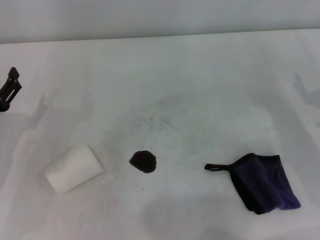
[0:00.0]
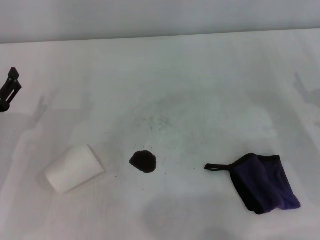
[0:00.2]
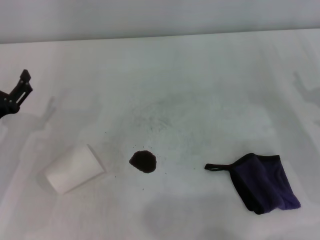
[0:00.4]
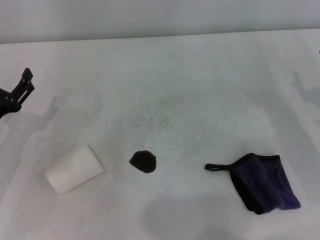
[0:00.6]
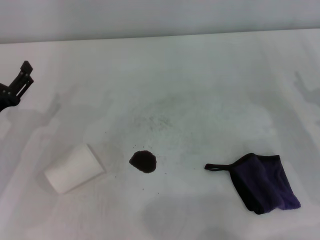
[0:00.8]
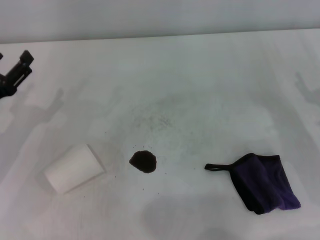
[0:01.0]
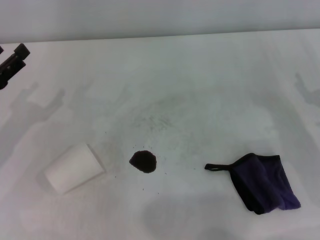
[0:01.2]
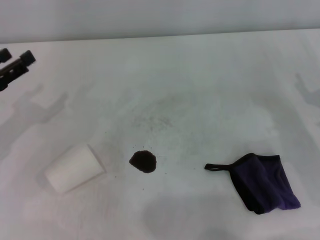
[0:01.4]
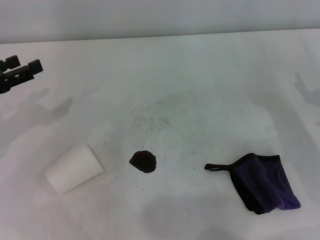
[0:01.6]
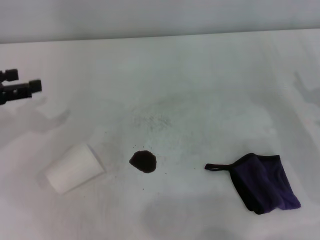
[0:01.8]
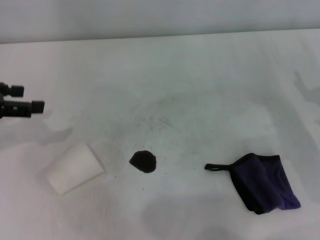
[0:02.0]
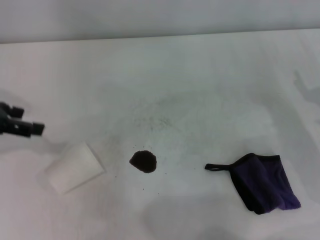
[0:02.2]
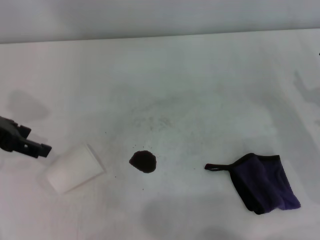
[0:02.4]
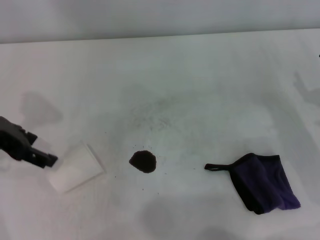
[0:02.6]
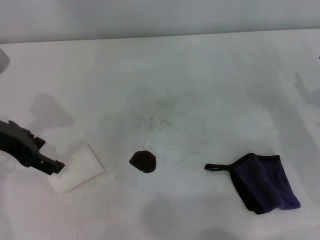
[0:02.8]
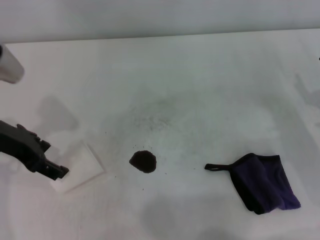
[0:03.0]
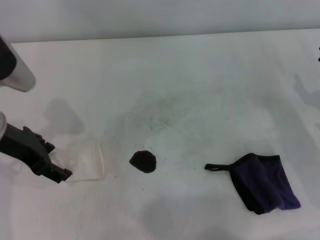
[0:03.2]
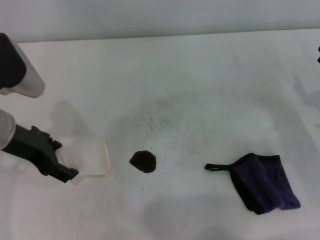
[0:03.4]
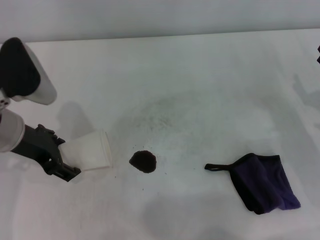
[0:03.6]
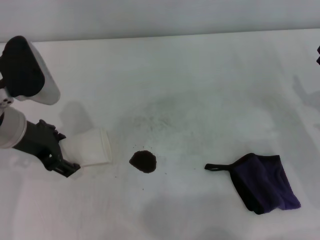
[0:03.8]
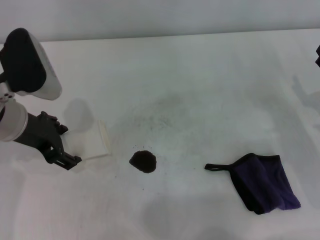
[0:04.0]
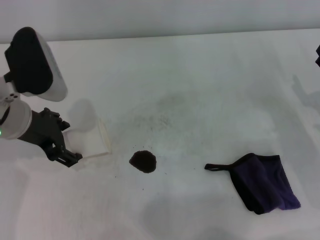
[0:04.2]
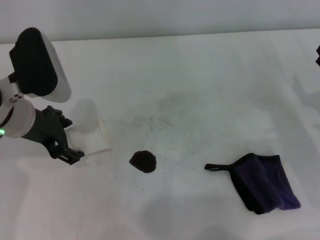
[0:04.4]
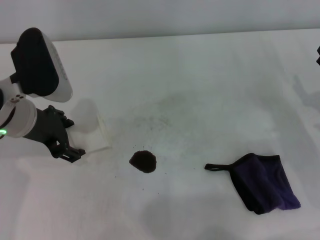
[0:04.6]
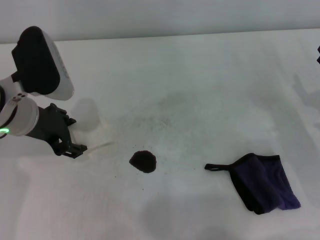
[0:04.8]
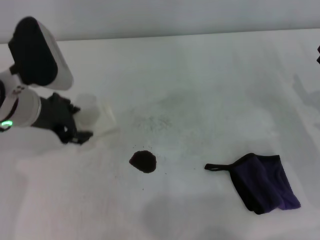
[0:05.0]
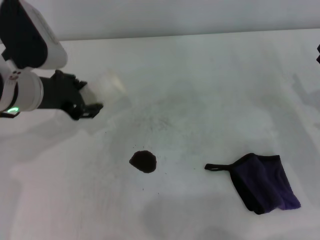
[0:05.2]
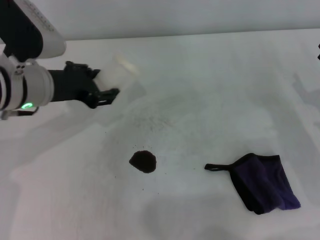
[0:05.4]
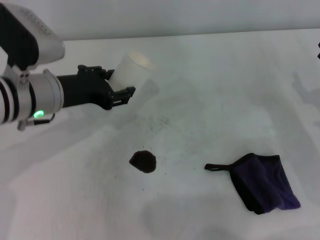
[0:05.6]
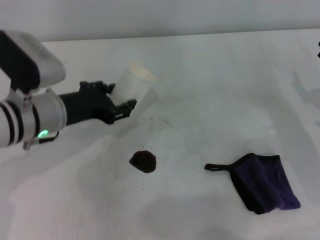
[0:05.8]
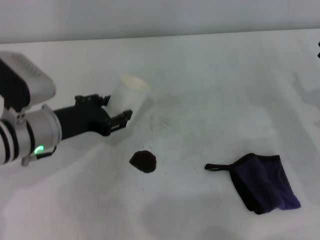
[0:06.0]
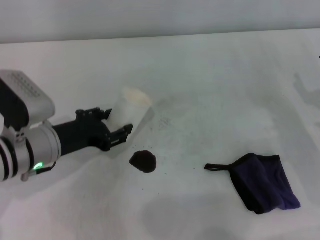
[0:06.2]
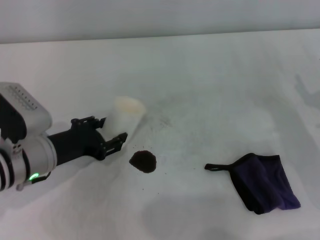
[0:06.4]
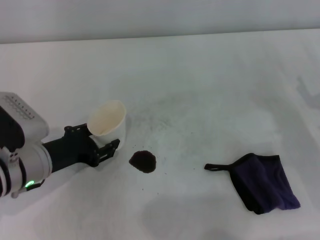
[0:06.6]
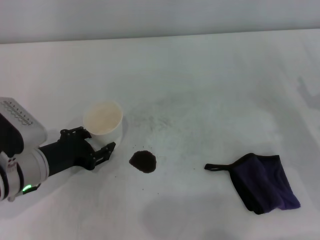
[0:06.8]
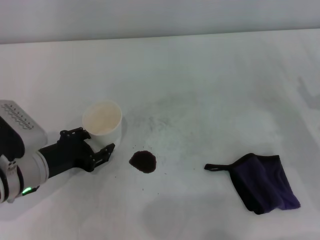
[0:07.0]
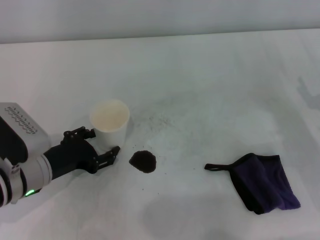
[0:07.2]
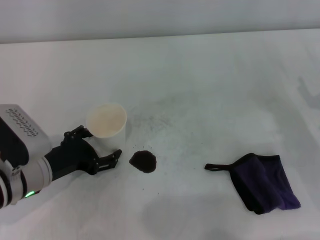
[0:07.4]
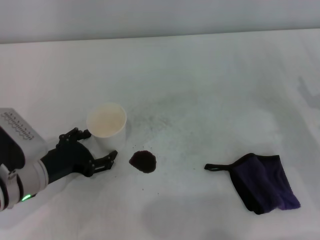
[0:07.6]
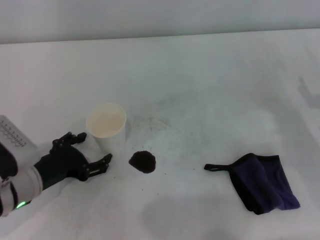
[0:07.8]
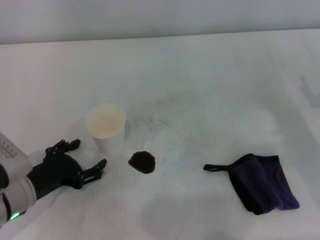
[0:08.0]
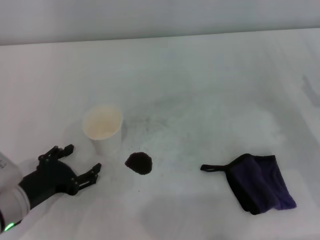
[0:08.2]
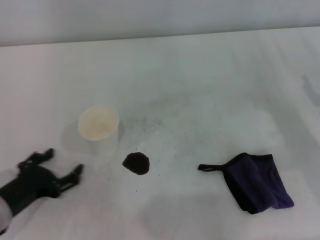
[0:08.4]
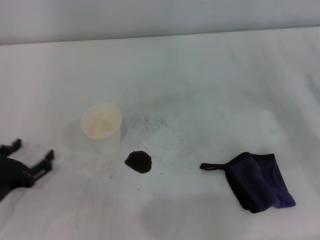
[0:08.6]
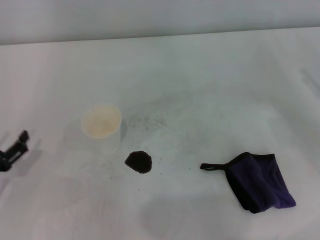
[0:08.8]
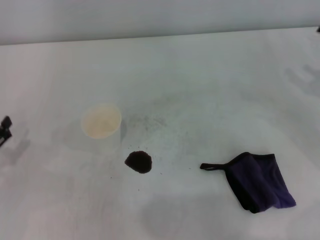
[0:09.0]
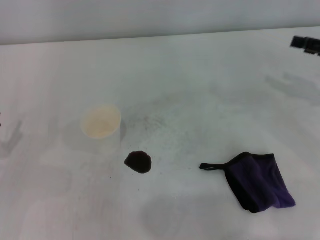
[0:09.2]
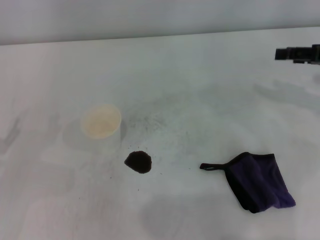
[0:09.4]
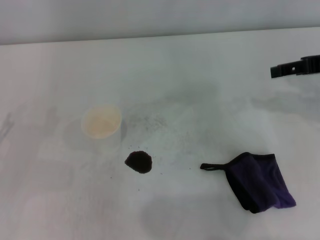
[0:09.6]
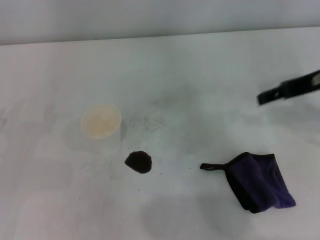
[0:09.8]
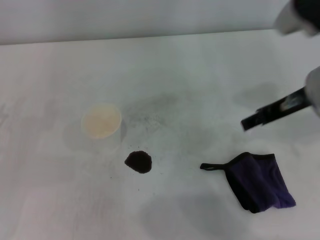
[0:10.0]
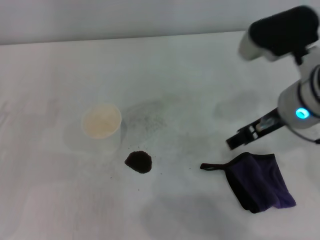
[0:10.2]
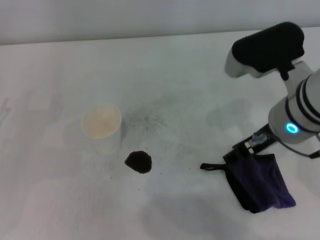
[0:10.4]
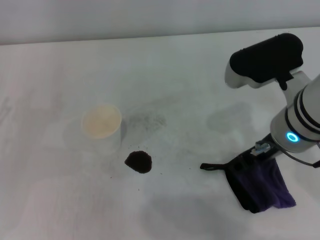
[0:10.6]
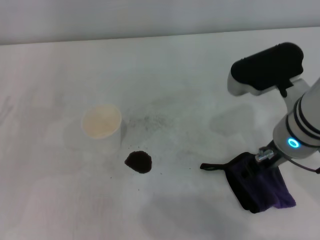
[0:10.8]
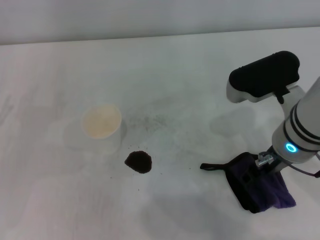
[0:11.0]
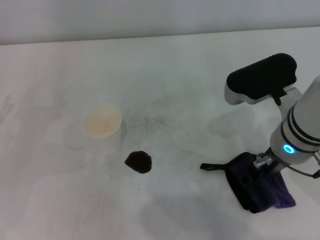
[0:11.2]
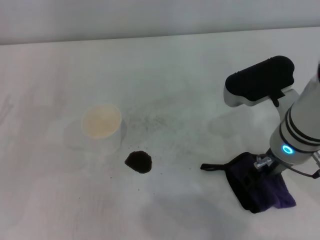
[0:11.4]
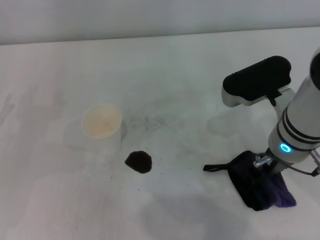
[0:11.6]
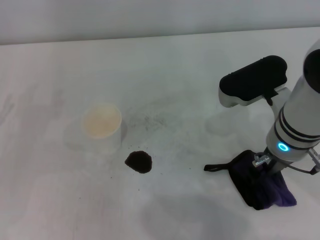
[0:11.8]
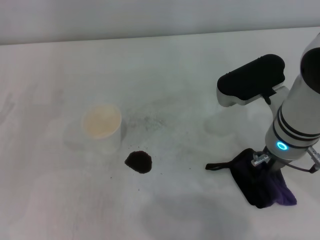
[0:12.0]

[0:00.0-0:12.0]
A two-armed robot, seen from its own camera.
Step, 0.0 to 4.8 s: Grasp the paper cup with the left gripper.
Step, 5.0 to 7.0 s: Stand the paper cup upright with the left gripper.
Step, 7.2 to 11.6 s: Grasp the rag with the right gripper.
0.0 to 1.6 s: The left gripper heads upward, covering approximately 10 cm.
1.6 to 3.0 s: The left gripper is displaced to the right by roughly 10 cm.
4.4 to 6.0 s: The left gripper is displaced downward by about 5 cm, and closes.
6.0 to 7.6 s: The left gripper travels downward by about 5 cm, and opens its fingers.
7.6 to 9.0 s: The left gripper is displaced to the left by some 10 cm. Meanwhile the right gripper shifts about 5 cm upward.
9.0 to 10.4 s: The right gripper heads to the left, covering about 25 cm.
10.4 to 12.0 s: The right gripper closes up.

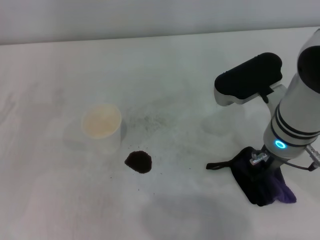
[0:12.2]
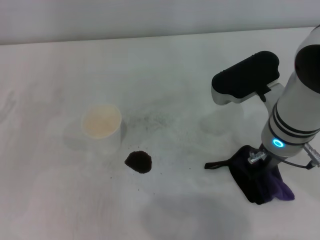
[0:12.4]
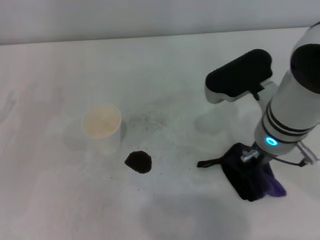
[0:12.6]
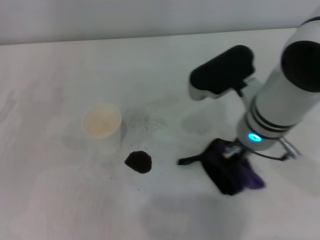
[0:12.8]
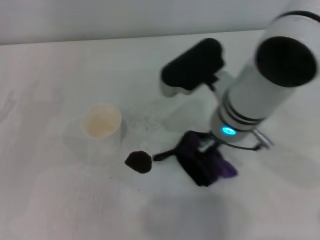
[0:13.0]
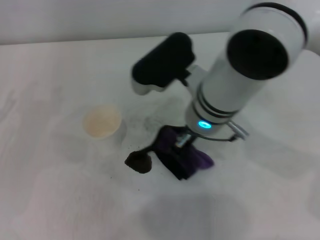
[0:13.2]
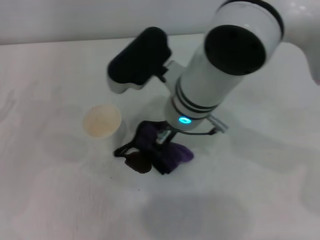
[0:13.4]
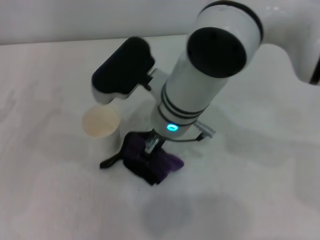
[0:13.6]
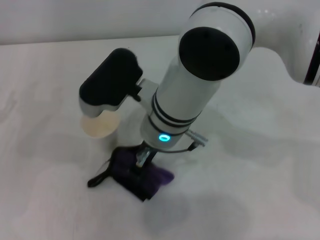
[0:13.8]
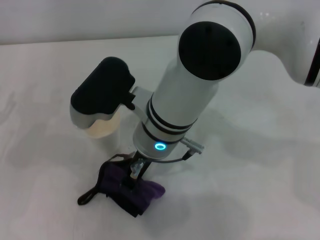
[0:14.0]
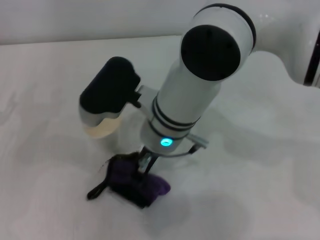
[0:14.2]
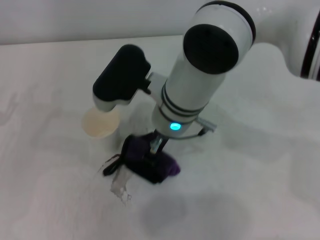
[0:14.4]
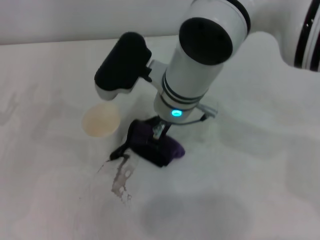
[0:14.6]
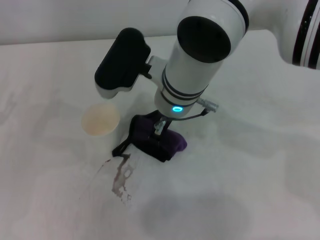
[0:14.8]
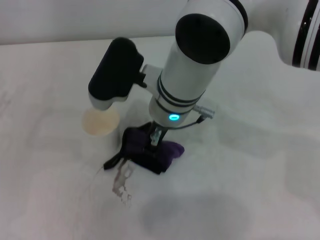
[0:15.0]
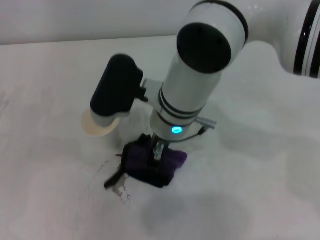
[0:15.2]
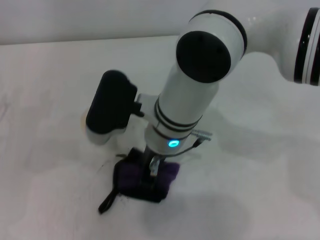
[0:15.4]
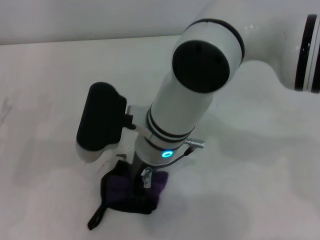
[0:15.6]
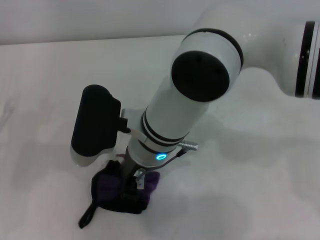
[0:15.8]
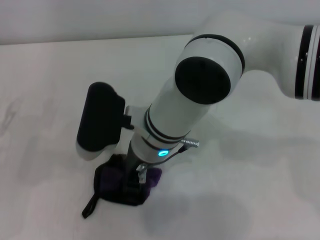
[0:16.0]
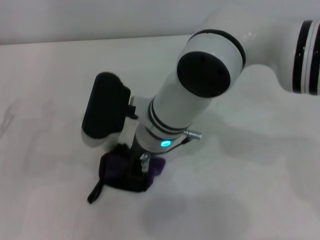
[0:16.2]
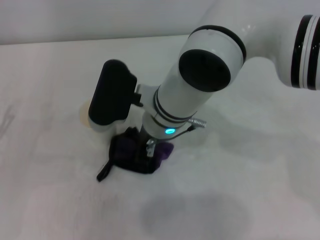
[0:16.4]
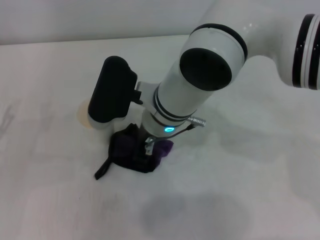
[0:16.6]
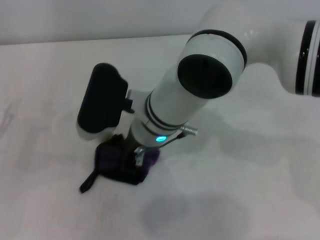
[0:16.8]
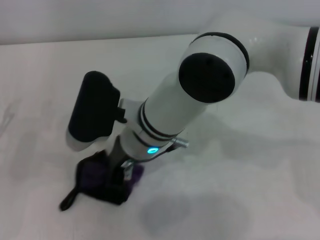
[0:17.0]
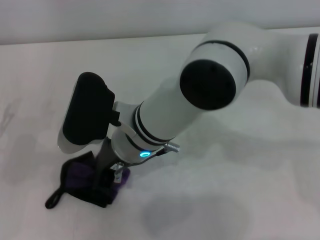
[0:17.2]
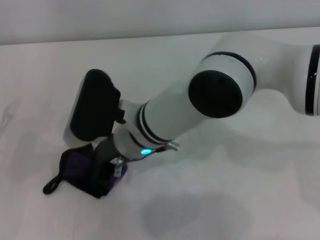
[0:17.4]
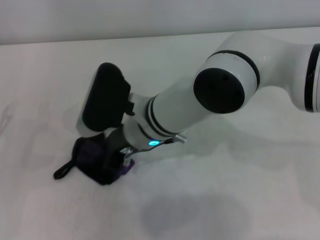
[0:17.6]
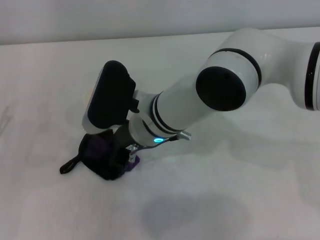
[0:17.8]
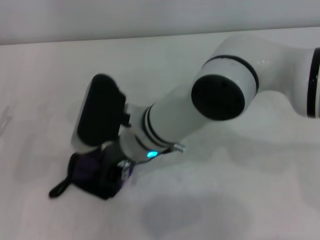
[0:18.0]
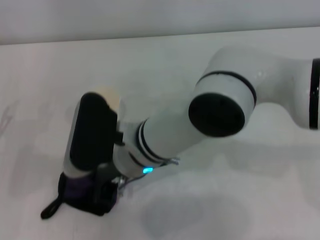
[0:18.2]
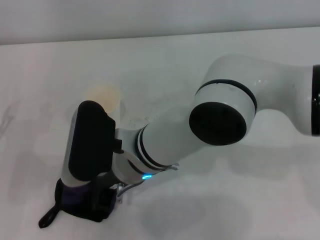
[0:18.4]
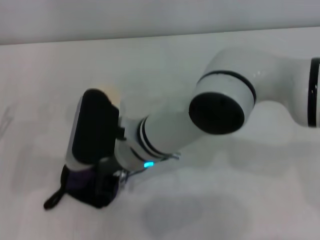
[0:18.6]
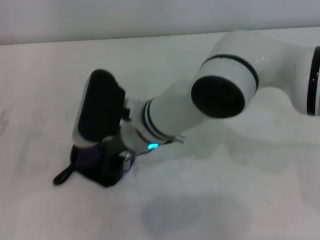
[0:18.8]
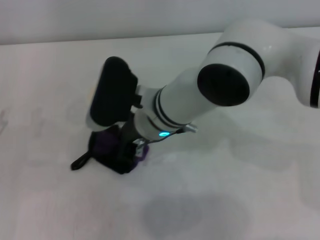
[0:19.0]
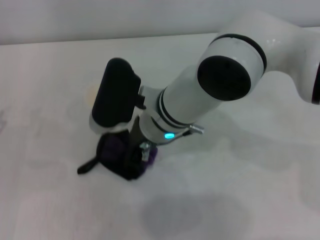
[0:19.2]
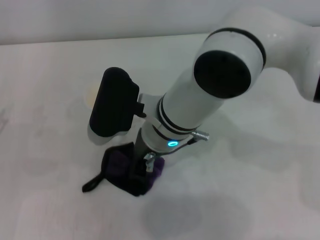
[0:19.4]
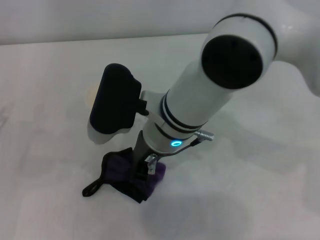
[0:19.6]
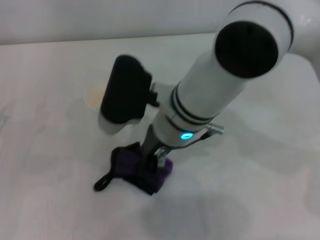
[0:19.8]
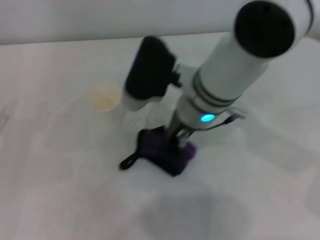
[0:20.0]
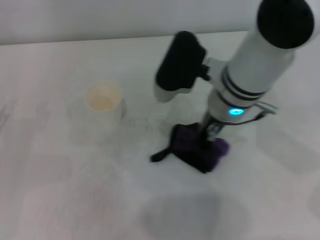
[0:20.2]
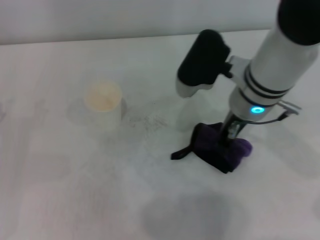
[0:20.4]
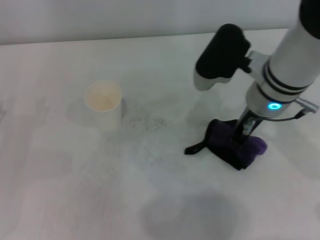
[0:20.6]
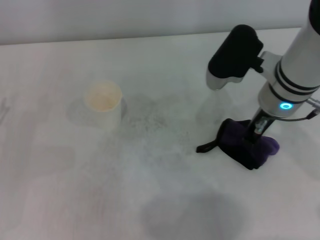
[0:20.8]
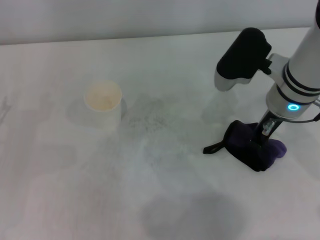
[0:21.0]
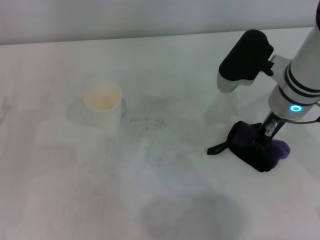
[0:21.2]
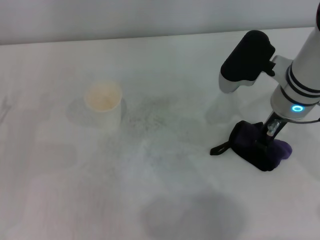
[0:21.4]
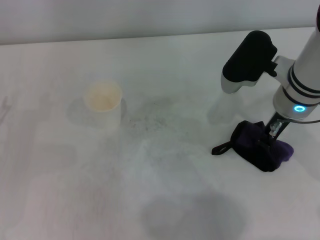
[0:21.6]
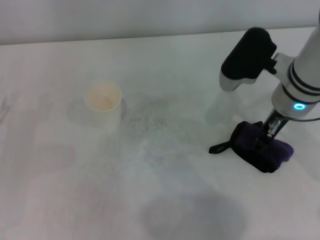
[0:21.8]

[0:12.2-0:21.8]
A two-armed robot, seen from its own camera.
Step, 12.2 to 20.0 s: Wipe the stains off the table with the right gripper.
Step, 20.2 to 21.8 s: Place the rag on the table with the right gripper.
12.2 to 13.8 s: The right gripper is displaced to the left by roughly 15 cm.
13.8 to 15.4 s: The grippers stay close to where they were, moving slightly.
18.6 to 20.2 s: The right gripper moves to the right, about 10 cm.
20.2 to 21.8 s: The right gripper heads to the right, covering about 10 cm.

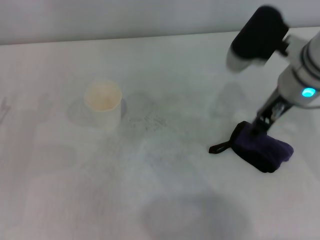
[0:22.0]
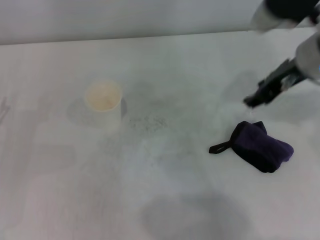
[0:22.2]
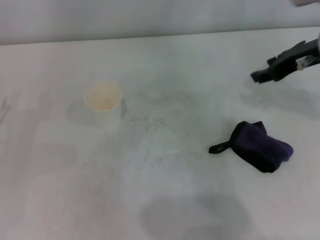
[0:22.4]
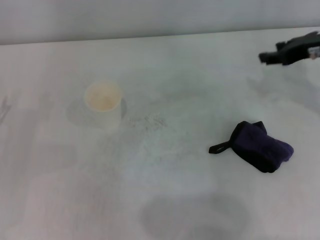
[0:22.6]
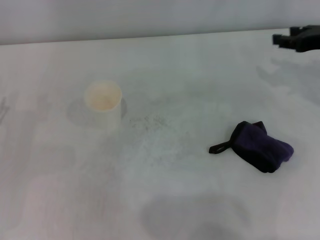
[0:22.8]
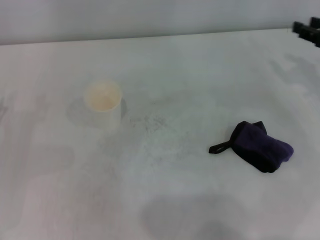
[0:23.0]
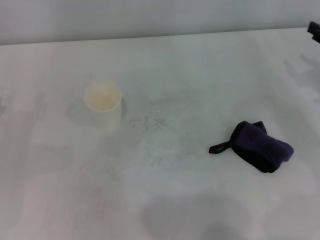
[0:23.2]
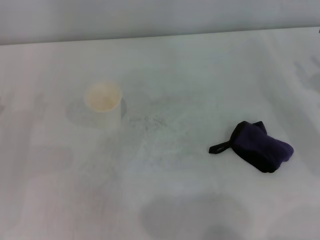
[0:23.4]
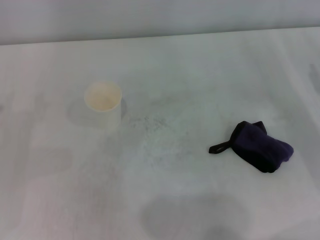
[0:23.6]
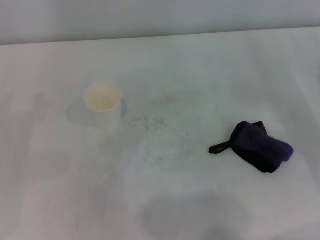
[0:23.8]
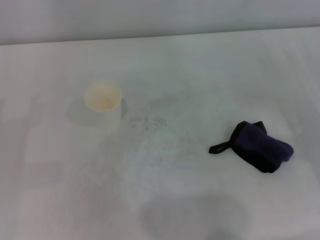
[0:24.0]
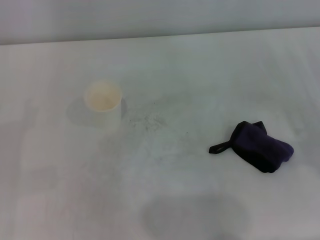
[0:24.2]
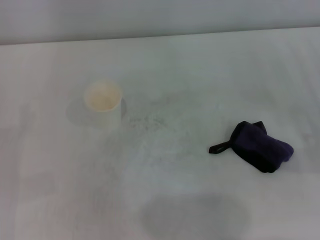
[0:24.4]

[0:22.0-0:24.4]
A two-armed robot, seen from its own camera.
22.0 to 23.2 s: The right gripper travels to the right by approximately 20 cm.
23.2 to 24.4 s: The right gripper moves backward and downward, roughly 10 cm.
